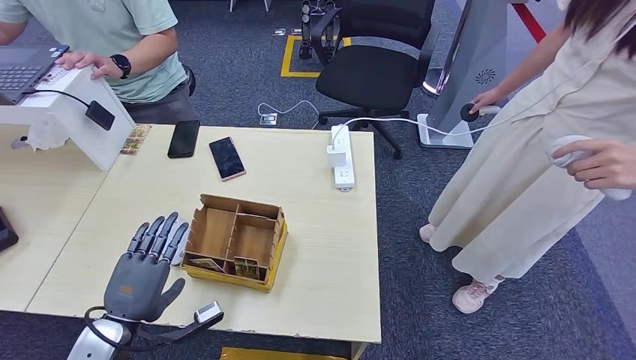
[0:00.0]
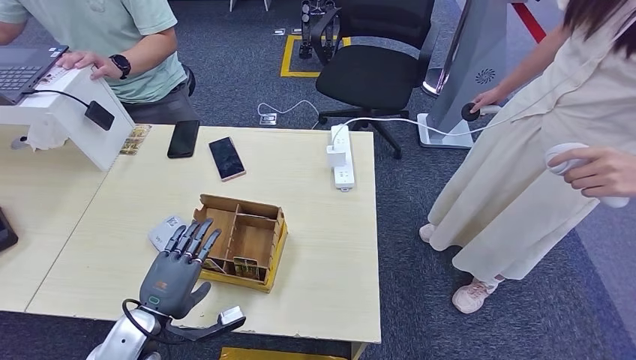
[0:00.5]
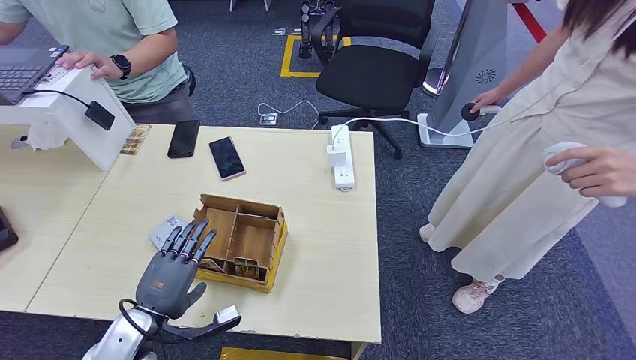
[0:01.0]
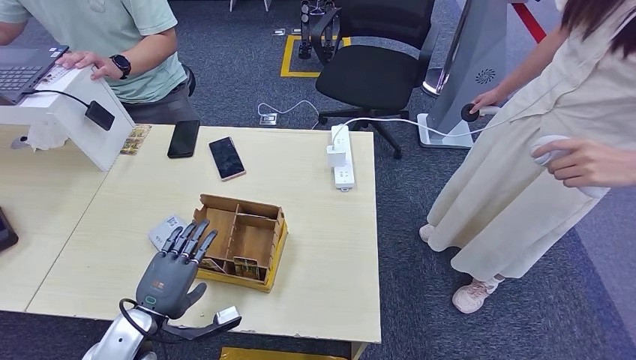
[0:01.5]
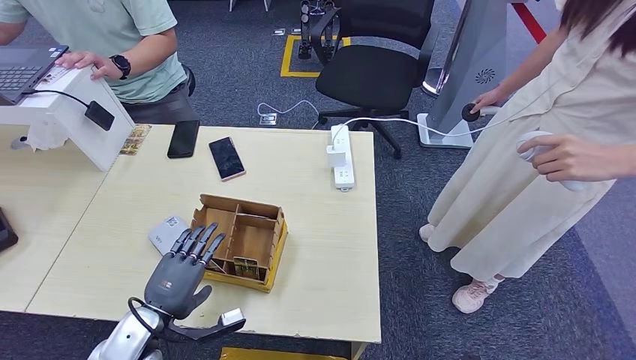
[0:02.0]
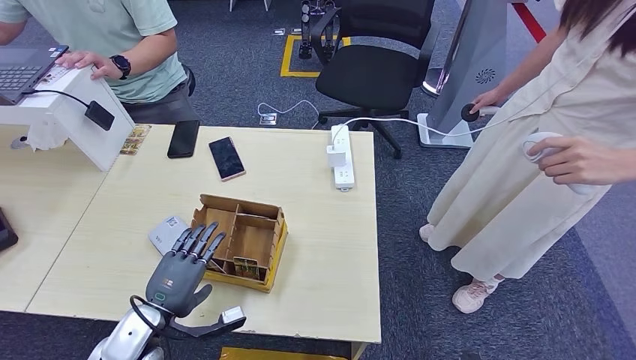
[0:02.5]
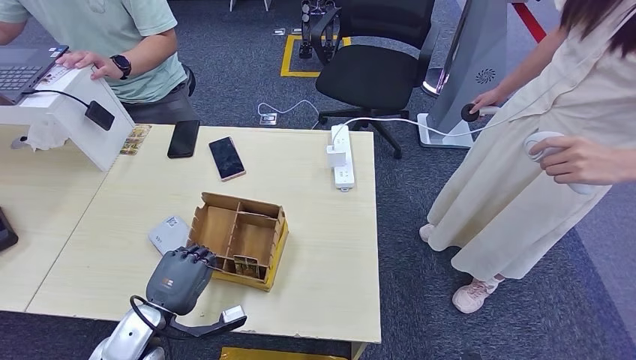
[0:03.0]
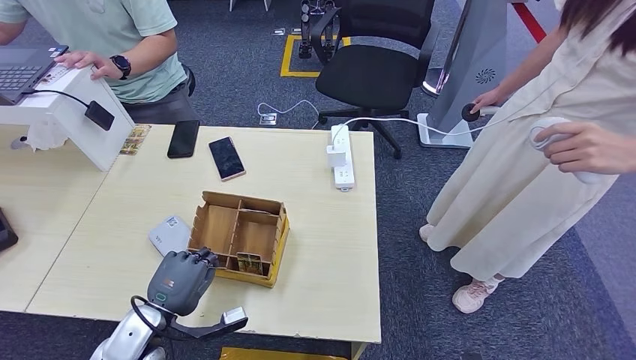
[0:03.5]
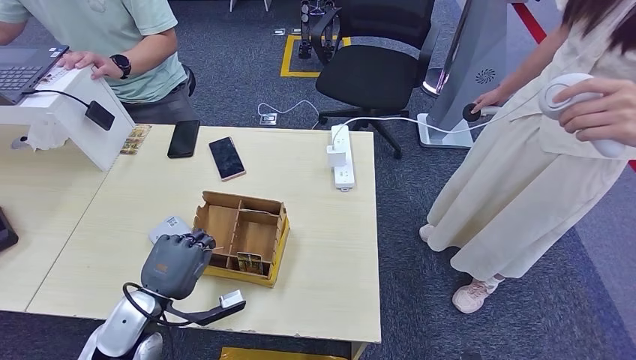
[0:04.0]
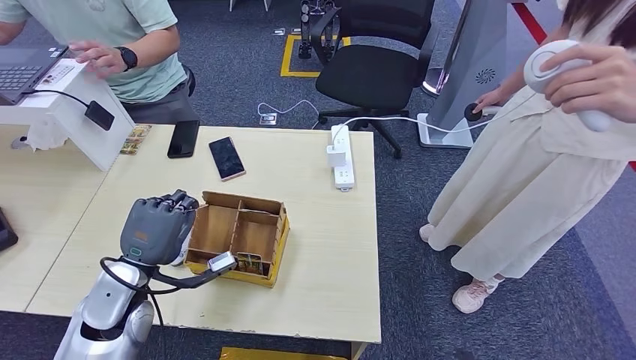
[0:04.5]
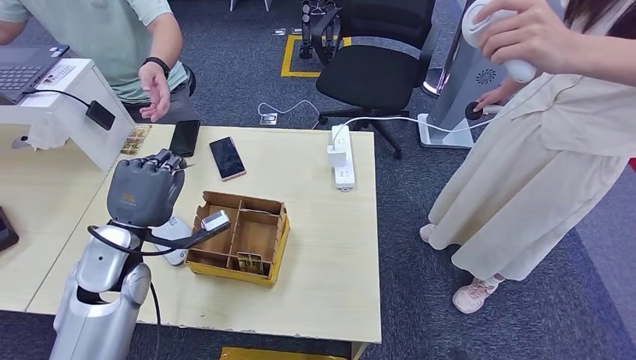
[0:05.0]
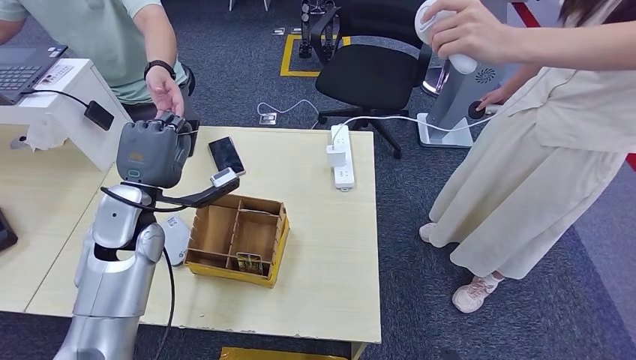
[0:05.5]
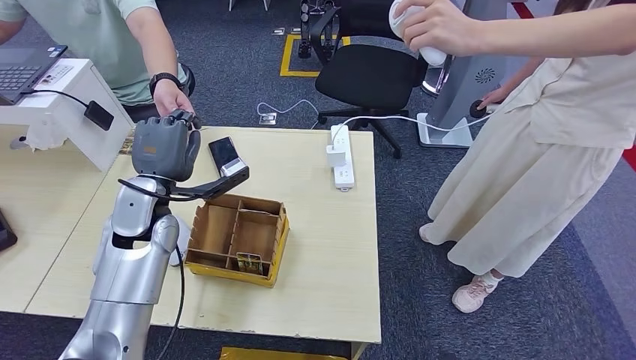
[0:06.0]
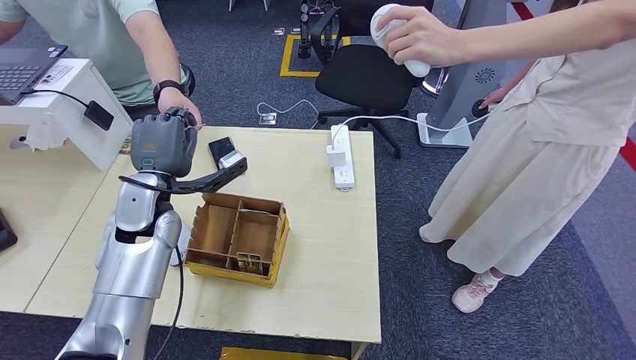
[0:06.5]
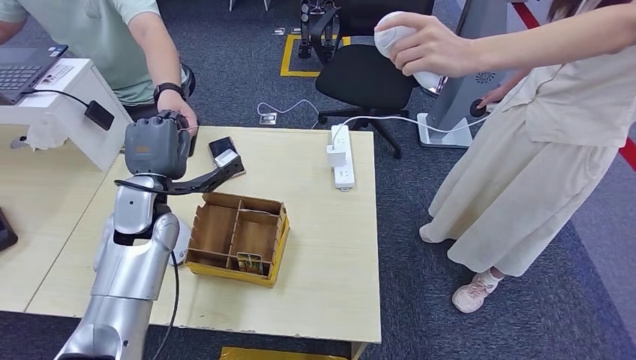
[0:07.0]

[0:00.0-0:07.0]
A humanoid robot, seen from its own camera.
Step, 0.0 to 4.0 s: Pick up the room key from the key card box.
Step, 4.5 to 7.0 s: Hand the room key to the person.
0.0 to 2.0 s: The left hand ends up about 5 cm from where it was.
2.0 to 3.5 s: Both hands stay about where they are.
3.5 to 5.0 s: The left hand shifts roughly 15 cm upward and forward.

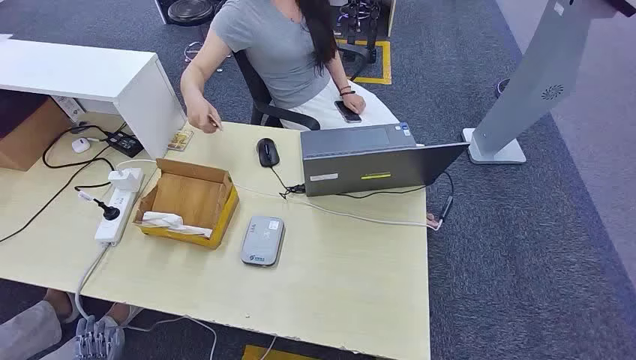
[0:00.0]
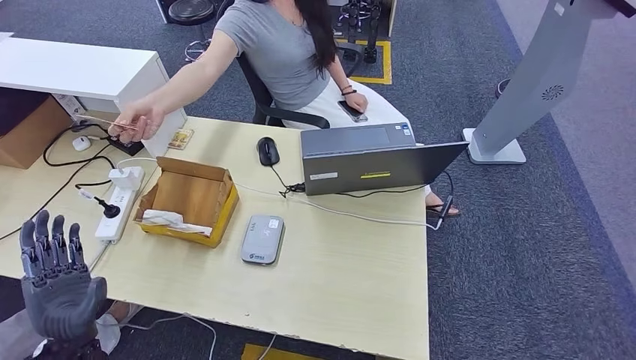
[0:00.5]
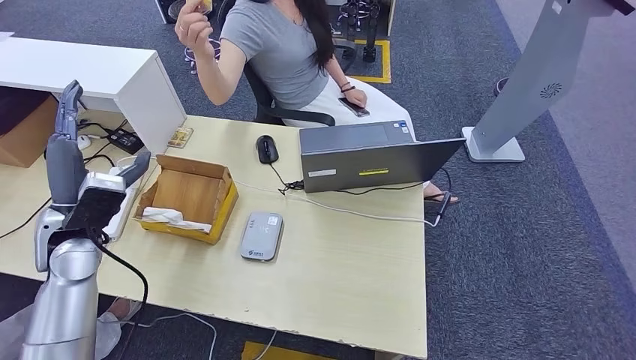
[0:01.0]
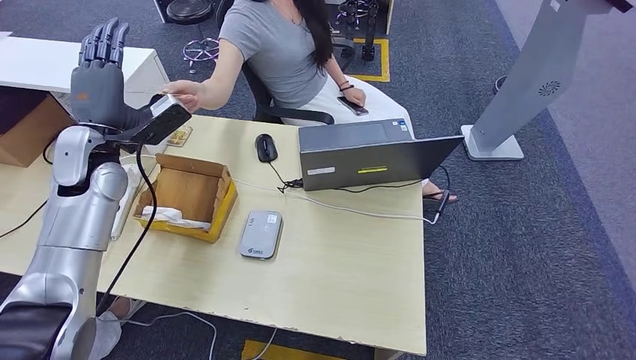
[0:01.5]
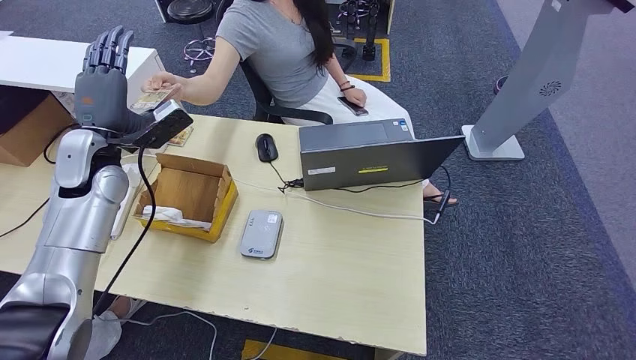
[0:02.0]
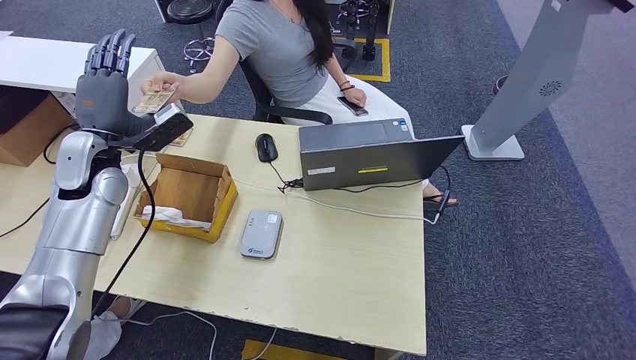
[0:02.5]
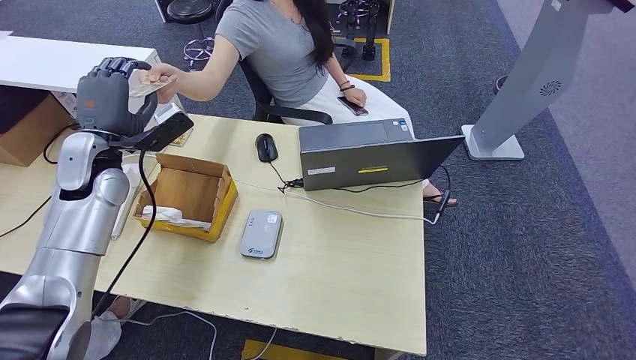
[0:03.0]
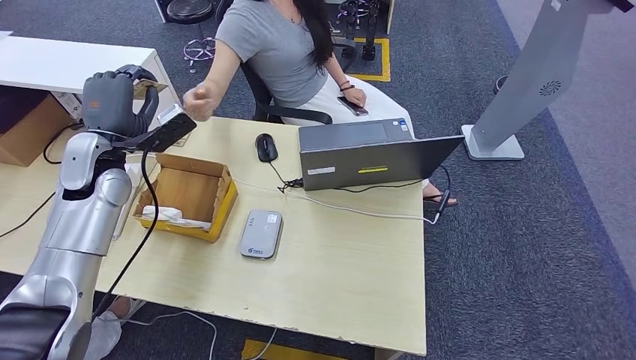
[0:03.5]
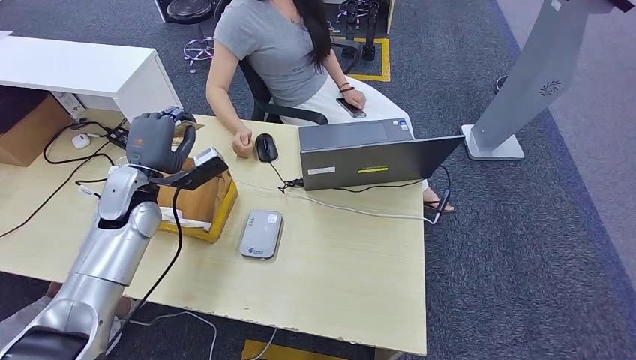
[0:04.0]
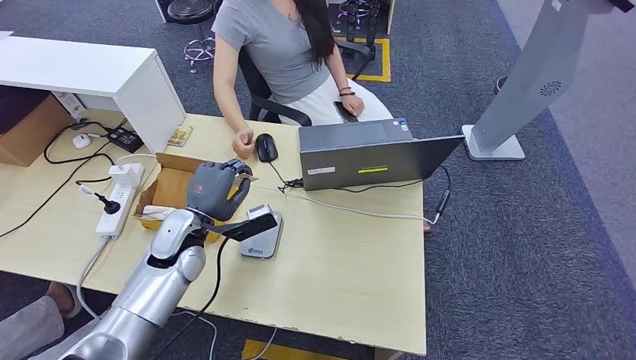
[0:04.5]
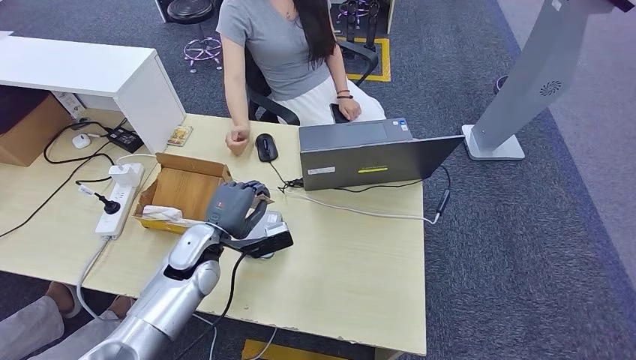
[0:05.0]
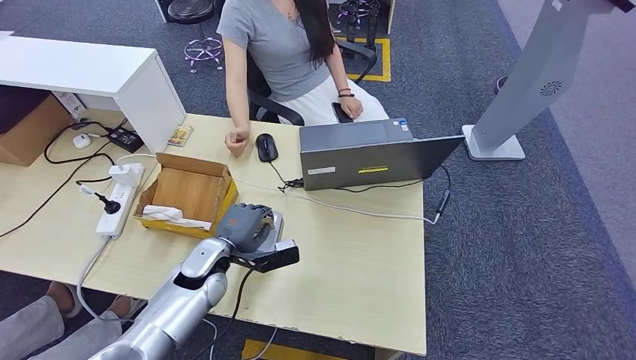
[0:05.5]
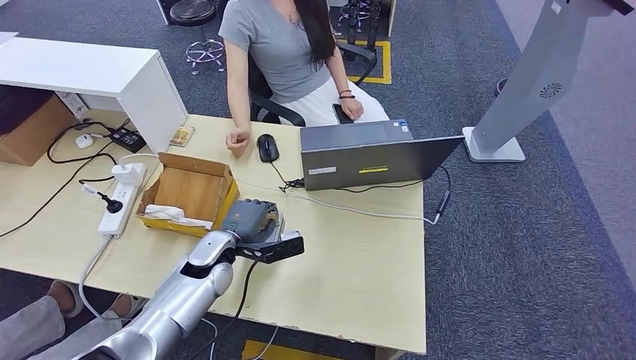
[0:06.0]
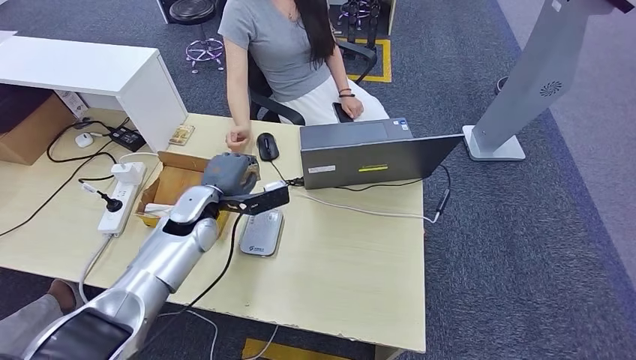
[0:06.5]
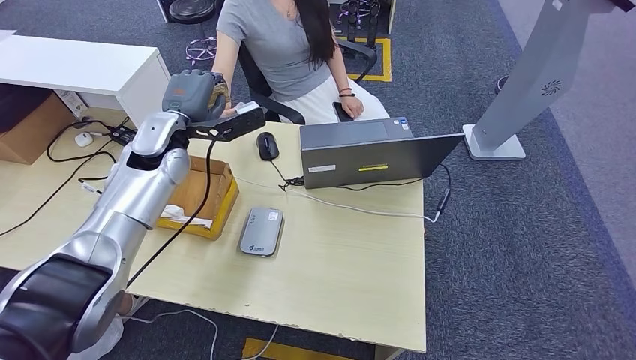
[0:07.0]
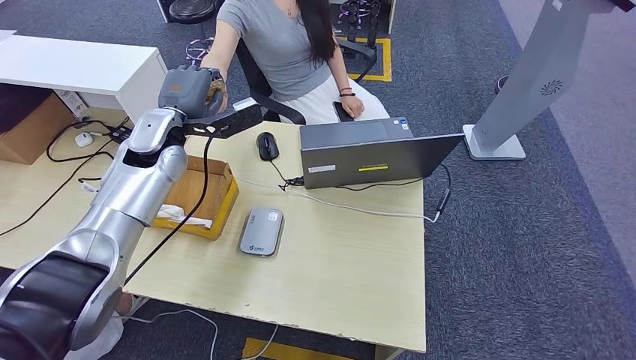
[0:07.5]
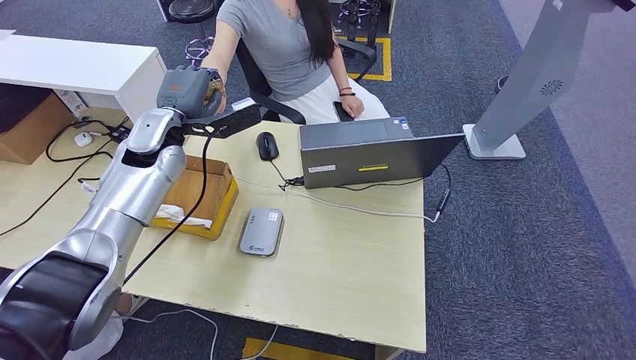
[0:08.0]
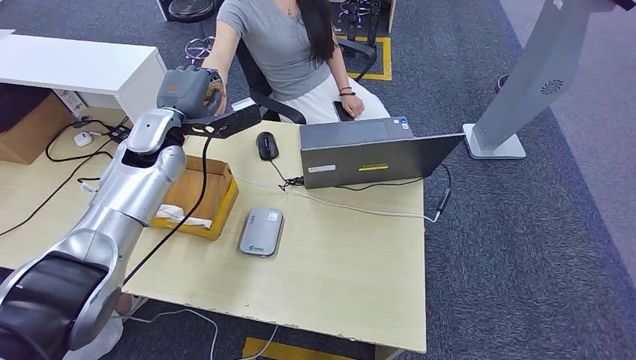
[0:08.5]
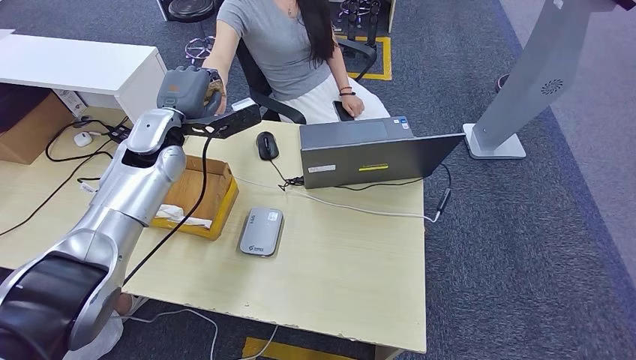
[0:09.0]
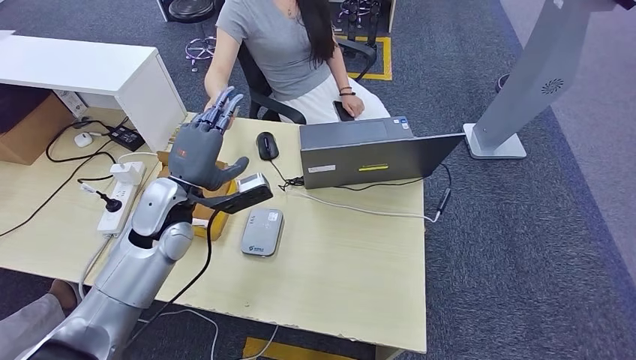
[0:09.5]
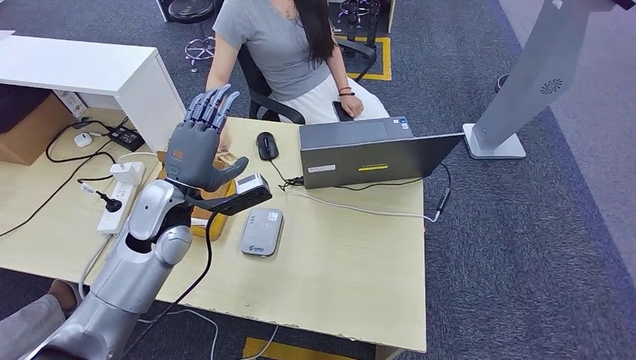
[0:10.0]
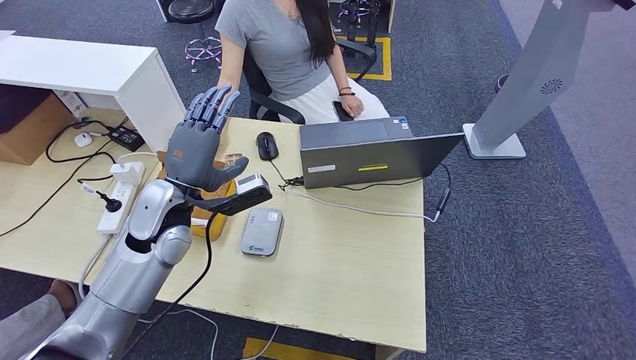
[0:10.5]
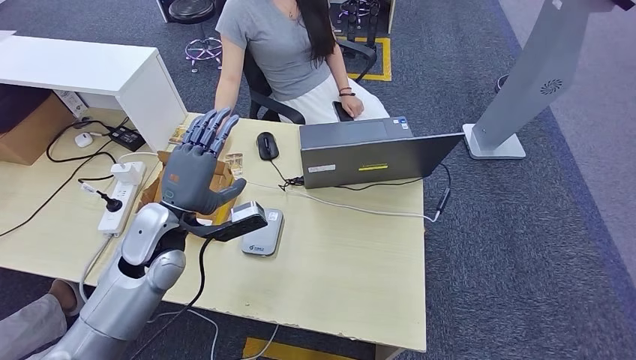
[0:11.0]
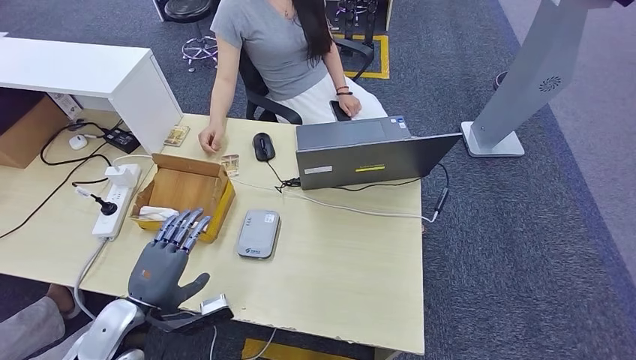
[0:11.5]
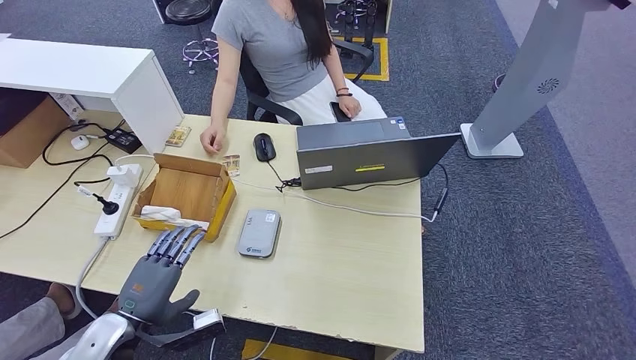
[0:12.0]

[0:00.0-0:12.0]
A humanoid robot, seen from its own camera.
Step, 0.0 to 3.5 s: Take the ID card from the person's hand.
Step, 4.0 to 6.0 s: Place the ID card on the card reader.
Step, 7.0 to 11.5 s: Hand the ID card to the person.
2.0 to 4.0 s: The left hand moves downward, roughly 5 cm.
8.0 to 10.0 s: The left hand goes approximately 10 cm backward and downward.
10.0 to 12.0 s: The left hand heads backward and downward, covering about 20 cm.

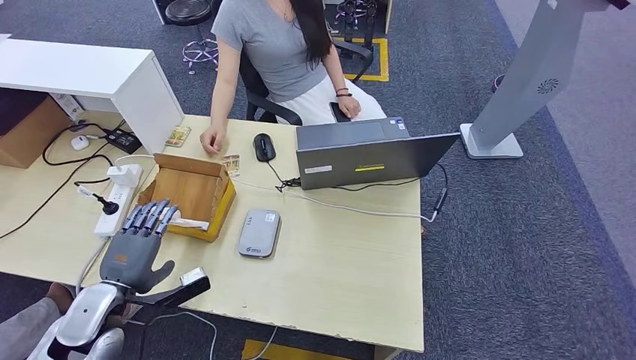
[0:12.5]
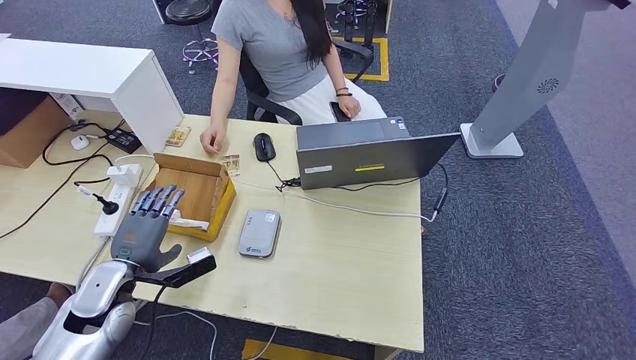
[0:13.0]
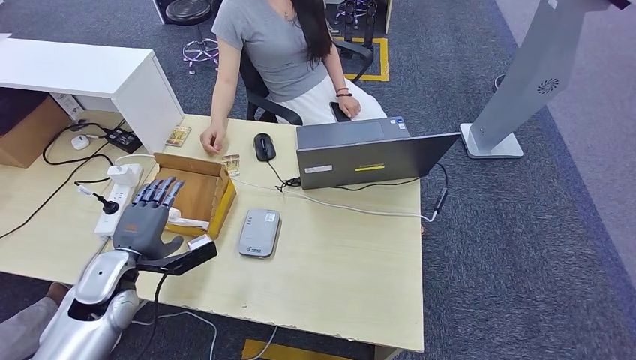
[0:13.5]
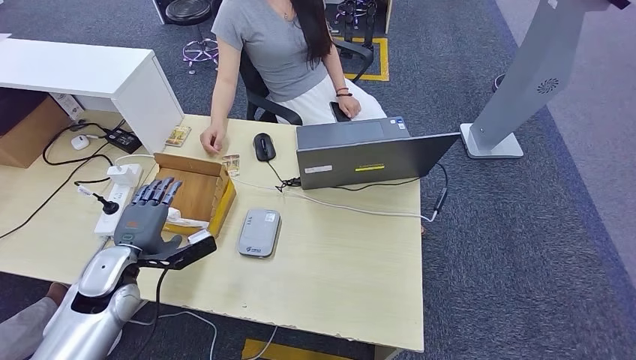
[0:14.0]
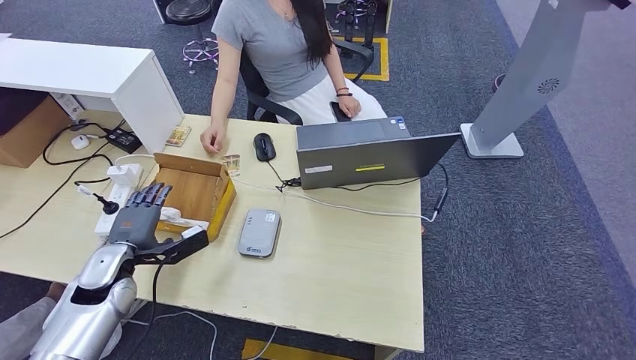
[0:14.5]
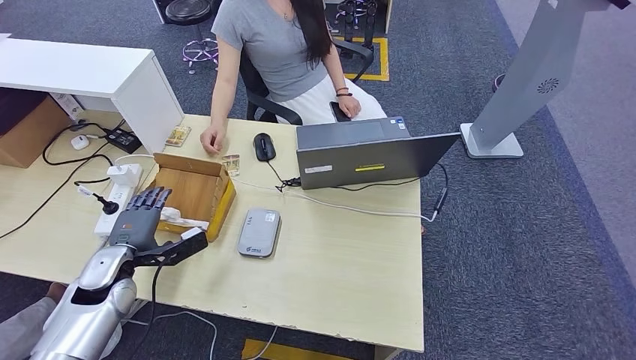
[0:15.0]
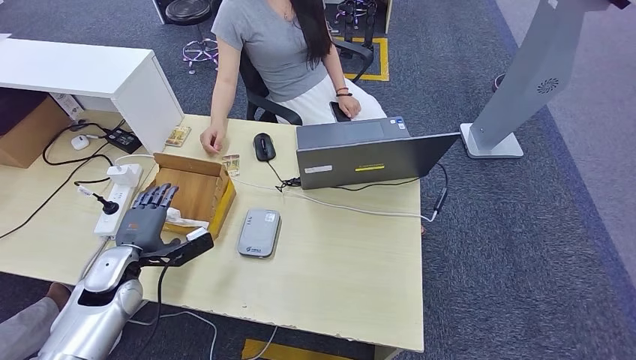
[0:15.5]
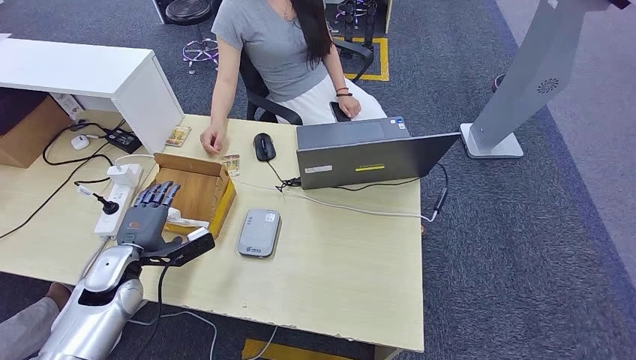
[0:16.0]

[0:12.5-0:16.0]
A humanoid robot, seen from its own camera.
12.5 to 14.5 s: The left hand moves forward, some 10 cm.
14.5 to 16.0 s: The hands make only small movements.
